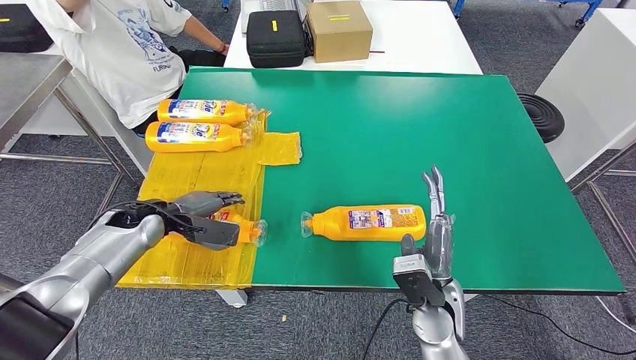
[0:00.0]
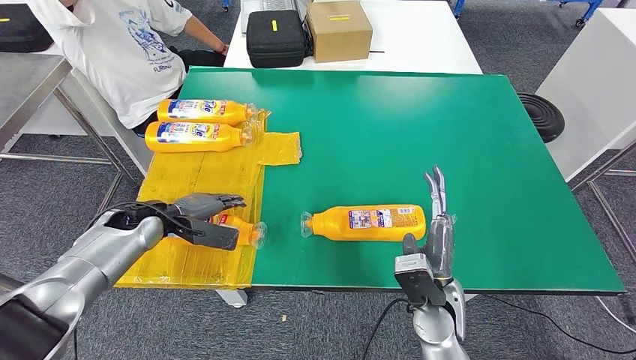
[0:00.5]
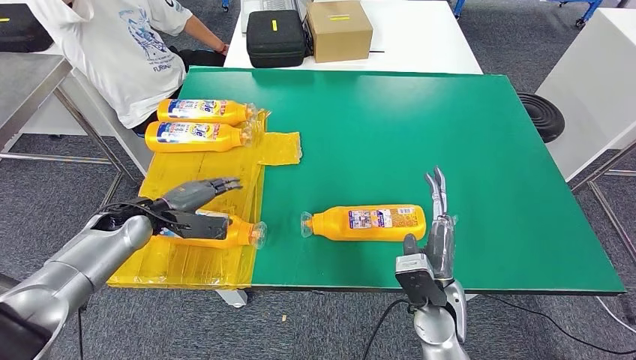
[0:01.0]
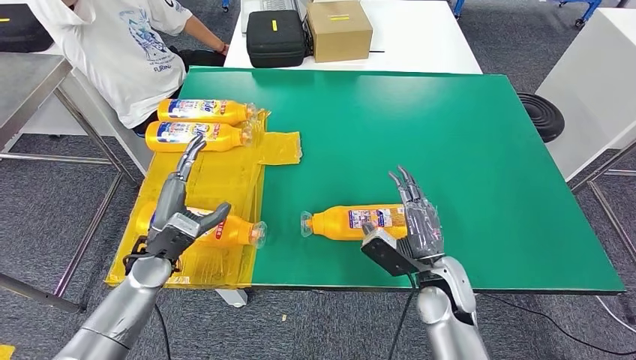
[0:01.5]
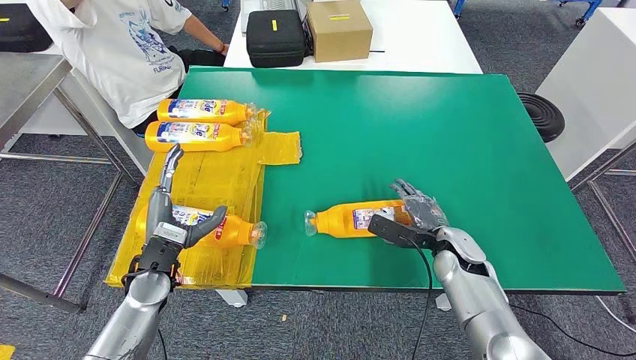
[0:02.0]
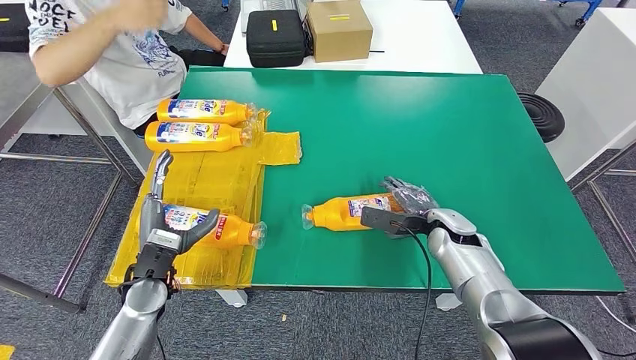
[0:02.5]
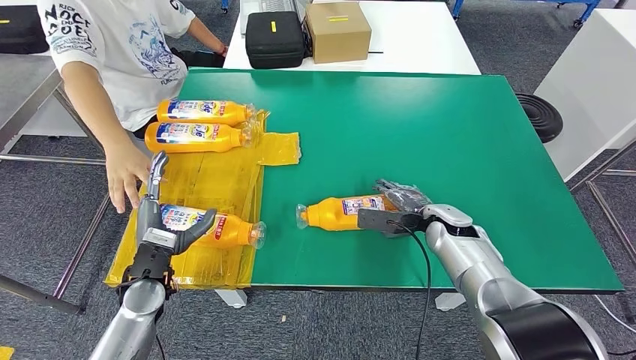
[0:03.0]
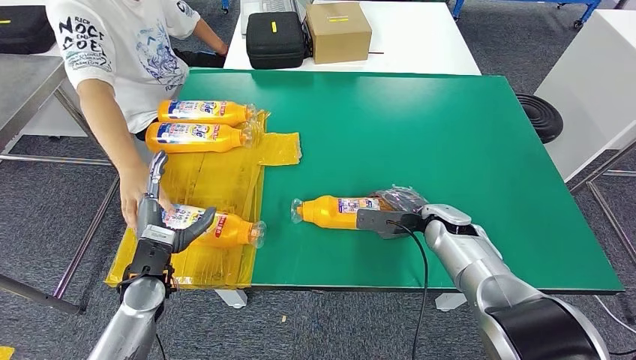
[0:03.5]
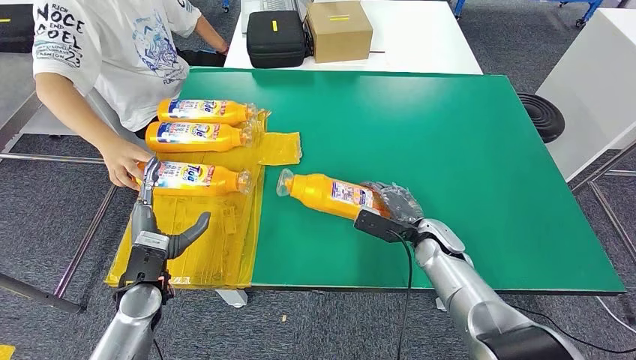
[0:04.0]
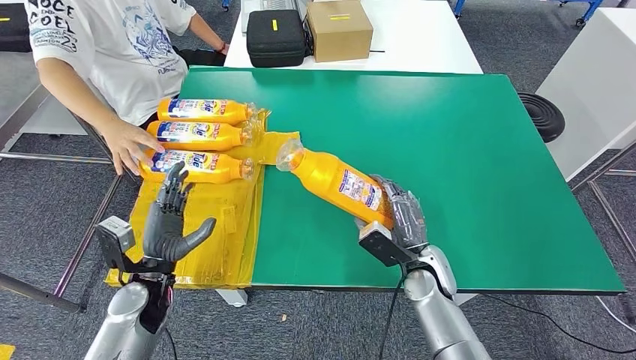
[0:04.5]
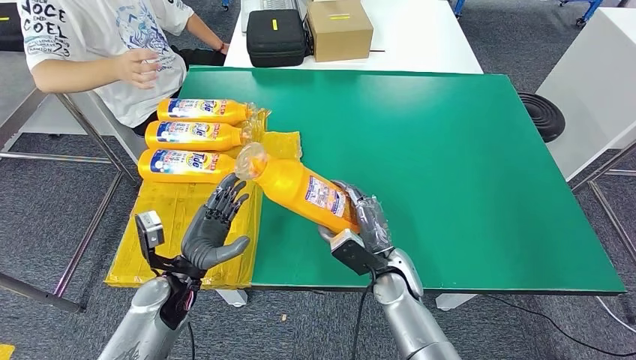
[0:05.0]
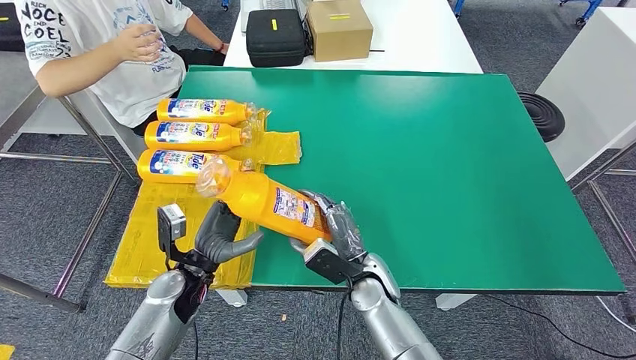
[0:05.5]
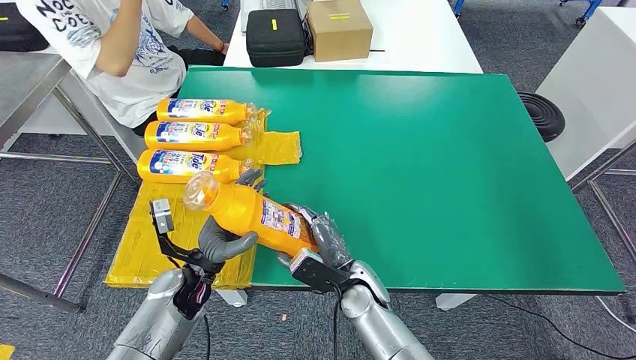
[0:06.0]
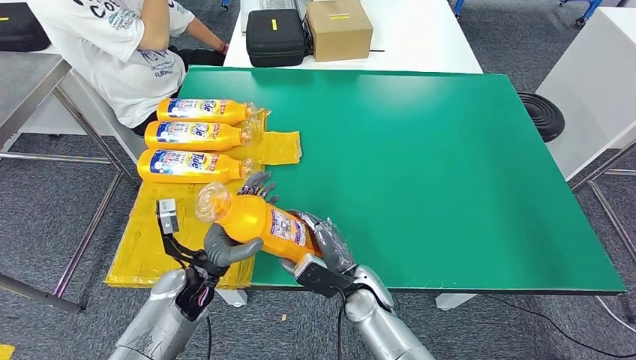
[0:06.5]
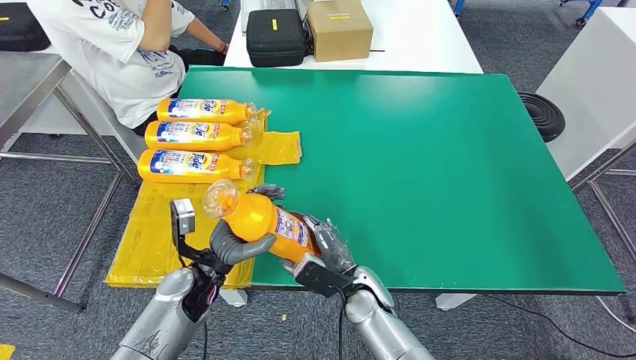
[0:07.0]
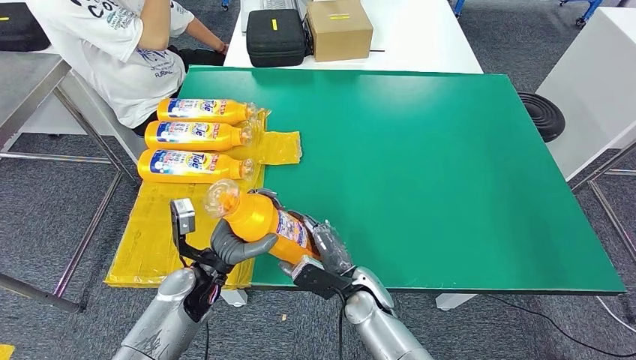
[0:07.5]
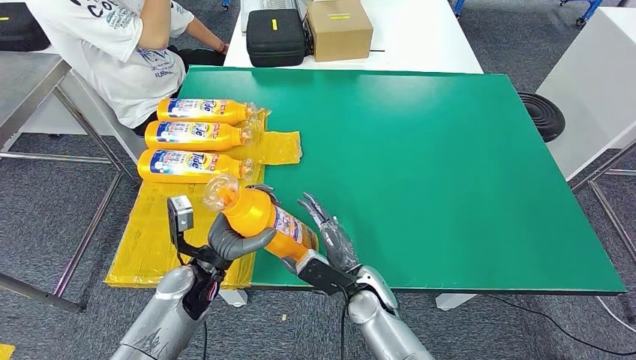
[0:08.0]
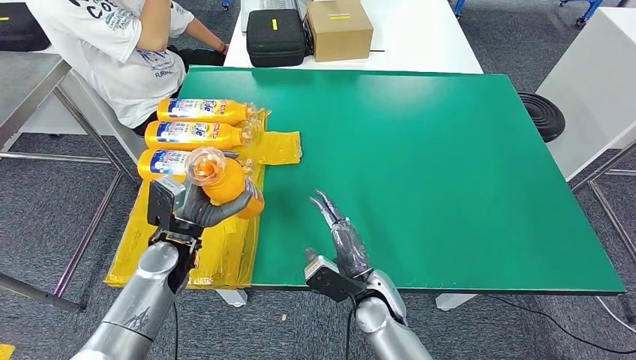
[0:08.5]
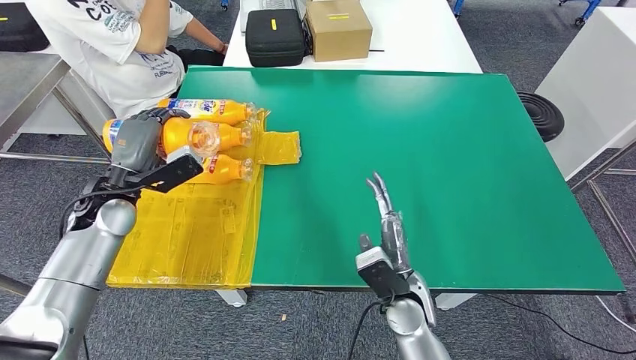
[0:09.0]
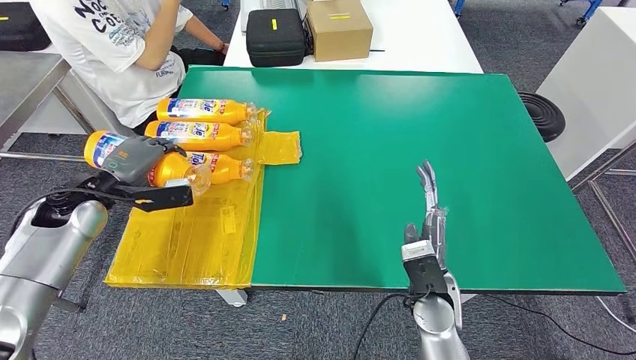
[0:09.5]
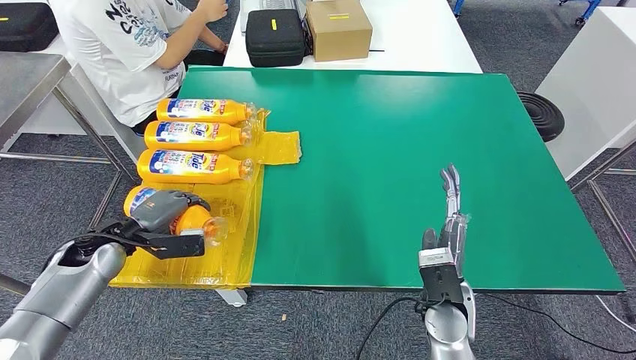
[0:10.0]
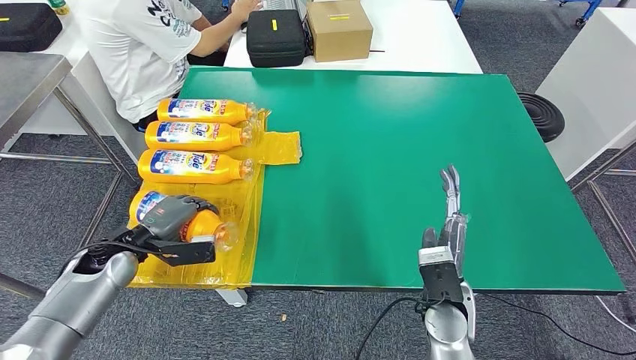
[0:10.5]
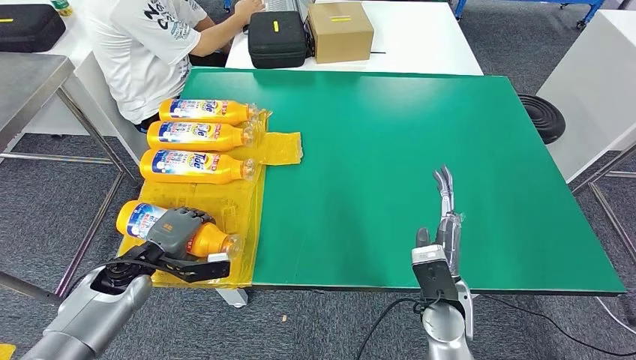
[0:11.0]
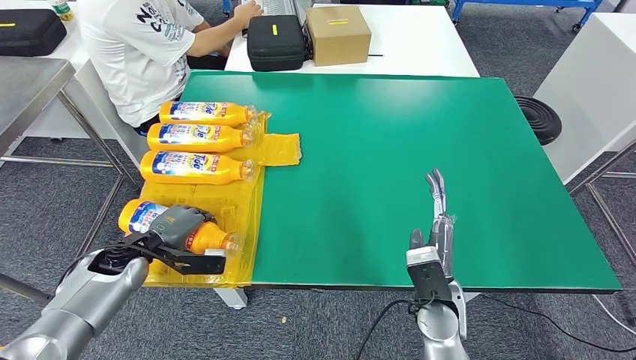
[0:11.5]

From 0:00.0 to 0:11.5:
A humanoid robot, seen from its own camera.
Step, from 0:00.0 to 0:05.0: Pick up the bottle from the table.
Step, from 0:05.5 to 0:11.5: Flip the bottle to face forward.
From 0:00.0 to 0:02.0: The right hand moves forward and to the right, approximately 15 cm; the left hand is displaced backward by approximately 10 cm.
From 0:06.0 to 0:07.5: The hands move only a little.
